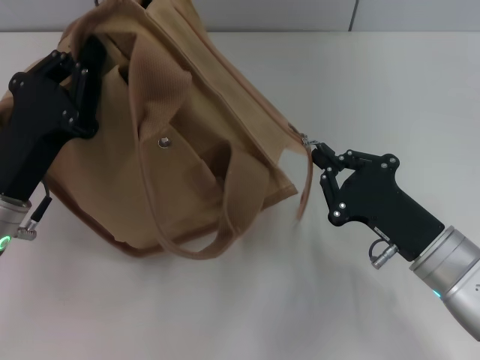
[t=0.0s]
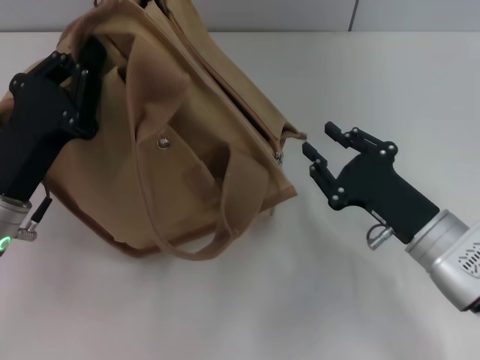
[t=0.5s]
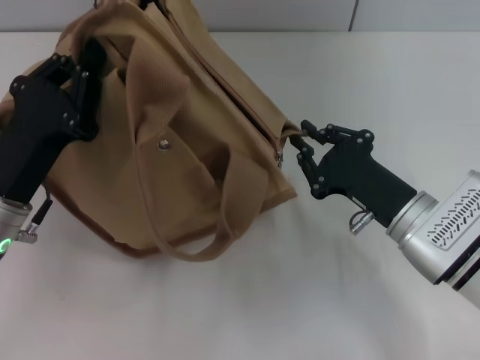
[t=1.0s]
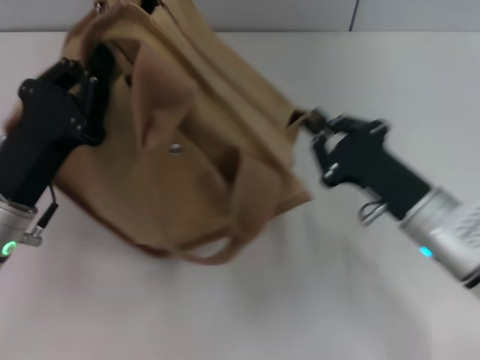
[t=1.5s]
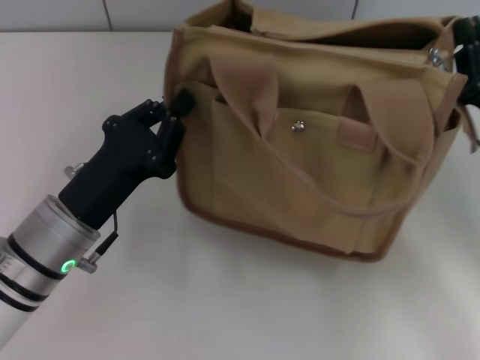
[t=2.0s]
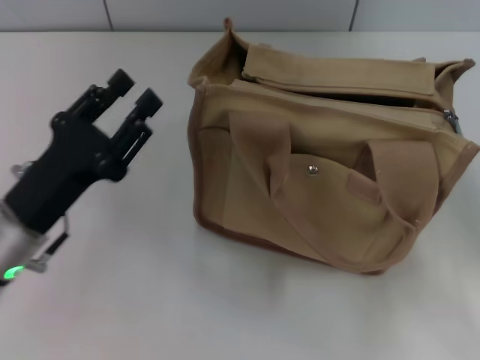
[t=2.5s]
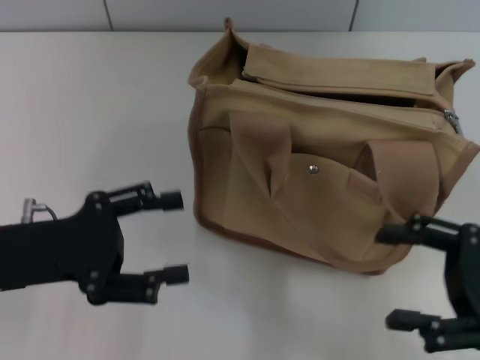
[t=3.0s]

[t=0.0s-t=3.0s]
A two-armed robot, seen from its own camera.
Step, t=0.5s to t=2.0s: Grab the bag with your left hand.
t=0.0s to t=1.5s: There are only small adjustments of the grippers.
t=1.5s to t=3.0s: The left gripper opens up, while the right gripper is displaced to the right, backward and upward by roughly 15 cm, and opens.

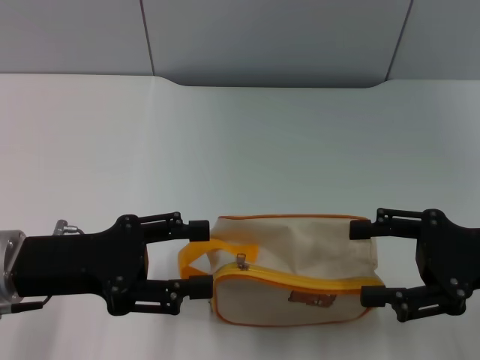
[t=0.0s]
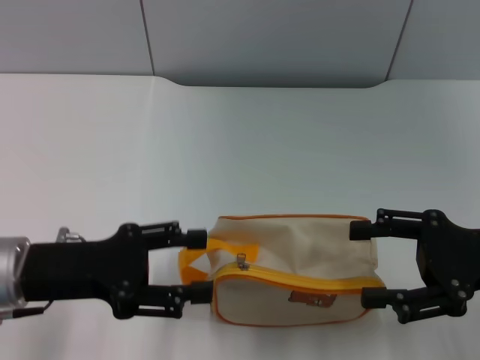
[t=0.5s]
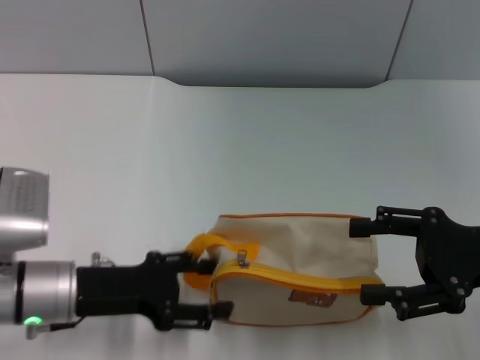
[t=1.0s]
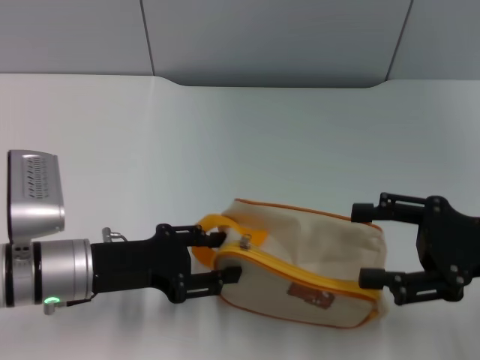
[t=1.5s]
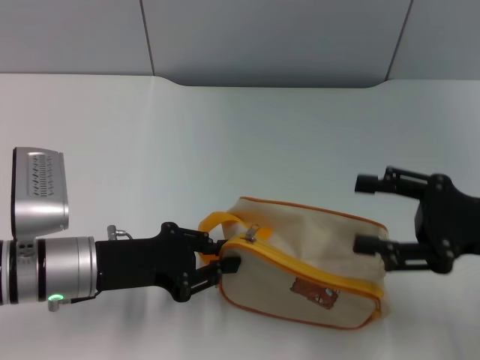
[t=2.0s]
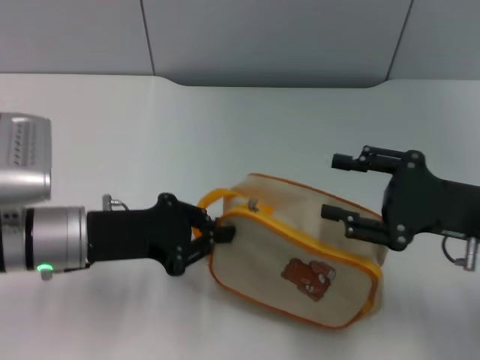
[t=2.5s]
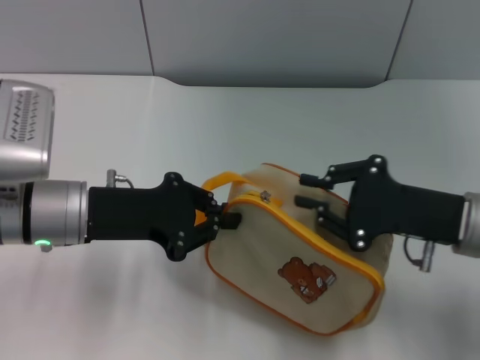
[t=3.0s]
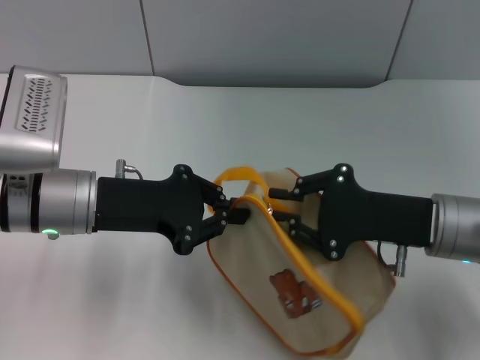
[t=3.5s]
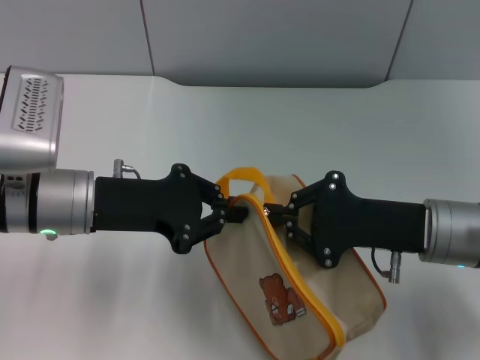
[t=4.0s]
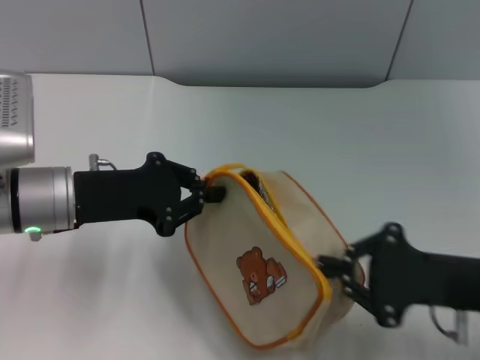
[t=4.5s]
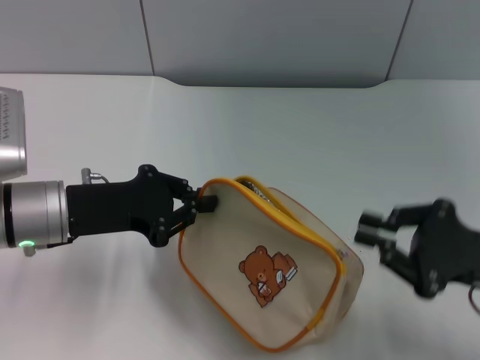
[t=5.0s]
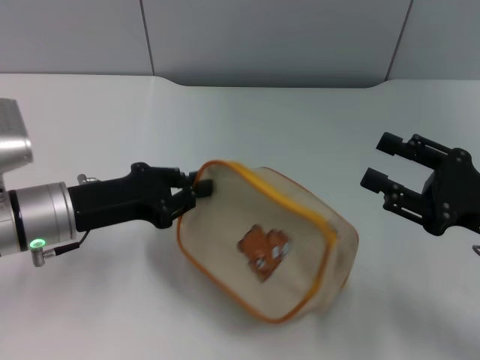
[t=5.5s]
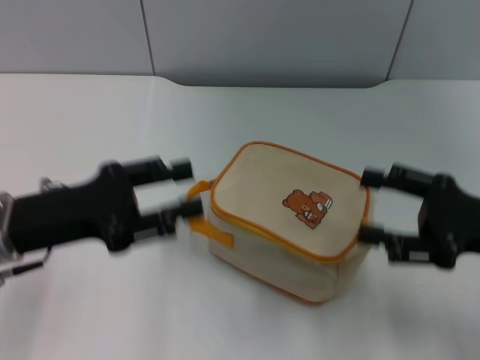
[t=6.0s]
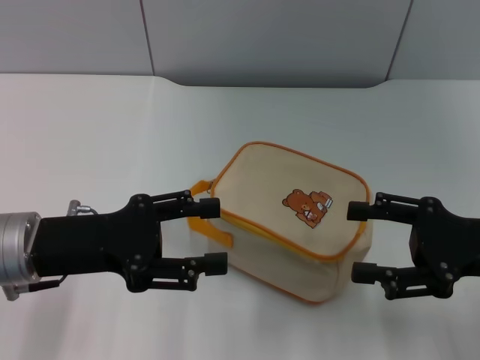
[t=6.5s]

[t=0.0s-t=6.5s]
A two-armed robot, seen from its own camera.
Step, t=0.0s to t=2.5s: Pick up the bag with left gripper.
Step, t=3.0s to t=5.0s: Unzip the zipper of bag with right gripper.
t=0.0s to t=2.0s: The left gripper goes some 5 cm downward, and closes its fingers.
t=2.0s to t=4.5s: The right gripper changes place by approximately 5 cm, and closes; the left gripper goes some 5 cm upward, and closes its fingers.
t=4.5s to t=6.5s: The right gripper moves roughly 5 cm, and opens. The left gripper travels backward by about 5 cm, and opens up.
